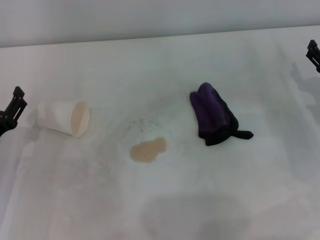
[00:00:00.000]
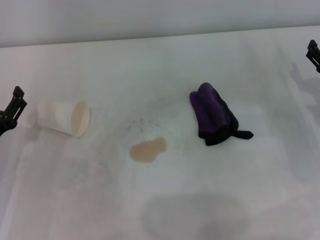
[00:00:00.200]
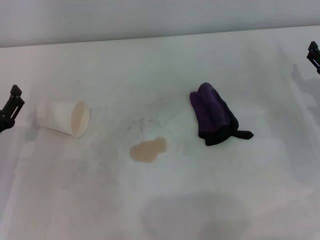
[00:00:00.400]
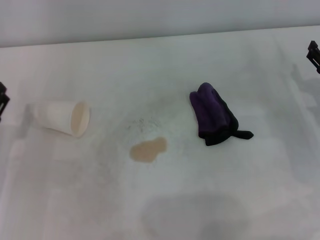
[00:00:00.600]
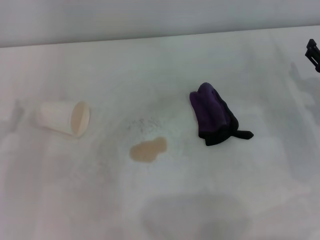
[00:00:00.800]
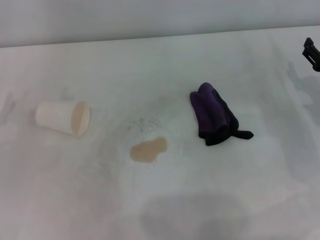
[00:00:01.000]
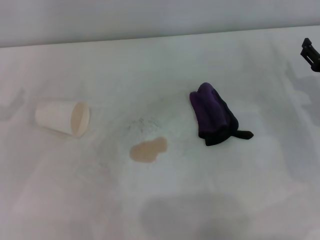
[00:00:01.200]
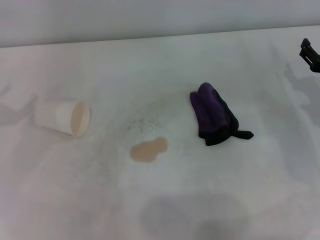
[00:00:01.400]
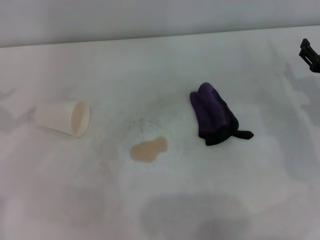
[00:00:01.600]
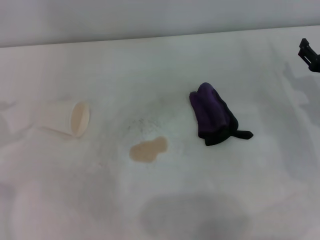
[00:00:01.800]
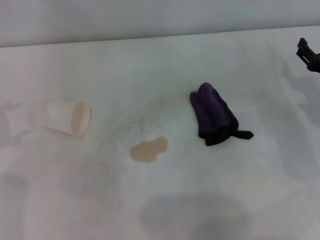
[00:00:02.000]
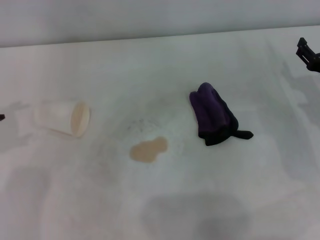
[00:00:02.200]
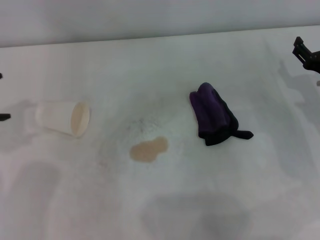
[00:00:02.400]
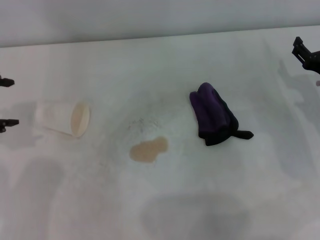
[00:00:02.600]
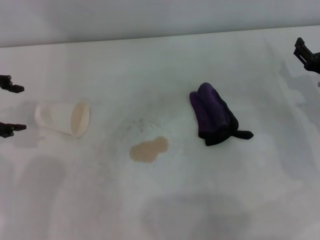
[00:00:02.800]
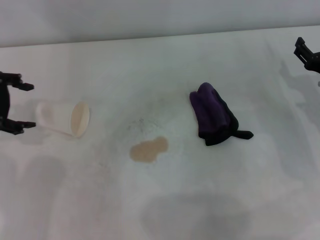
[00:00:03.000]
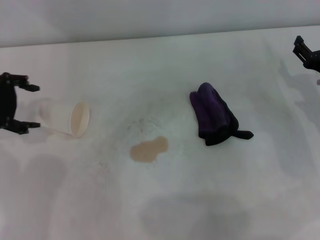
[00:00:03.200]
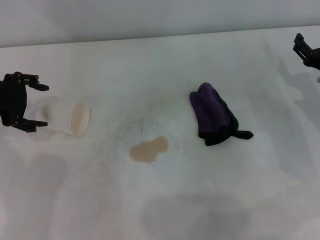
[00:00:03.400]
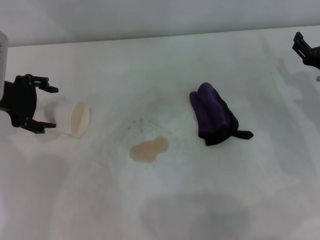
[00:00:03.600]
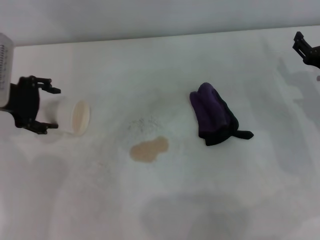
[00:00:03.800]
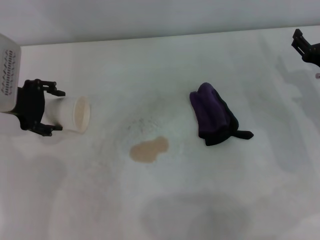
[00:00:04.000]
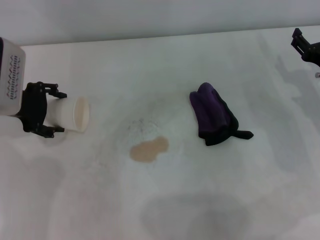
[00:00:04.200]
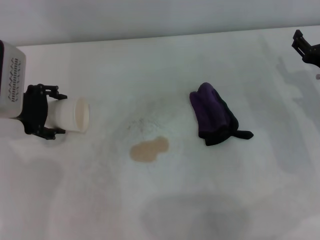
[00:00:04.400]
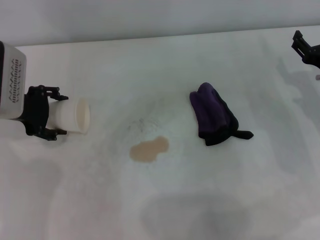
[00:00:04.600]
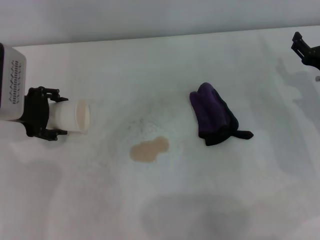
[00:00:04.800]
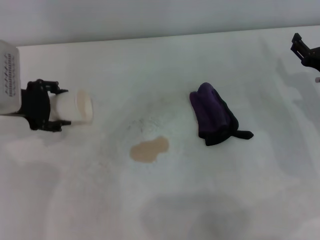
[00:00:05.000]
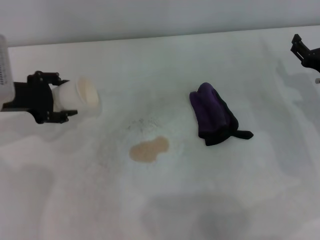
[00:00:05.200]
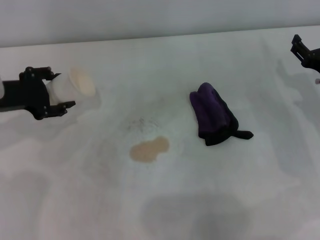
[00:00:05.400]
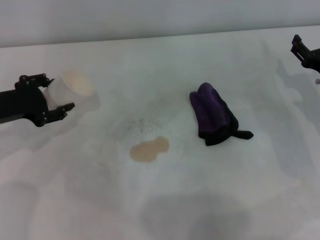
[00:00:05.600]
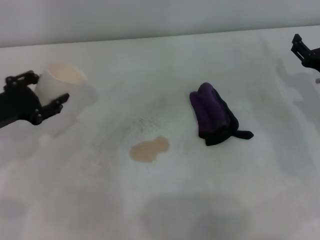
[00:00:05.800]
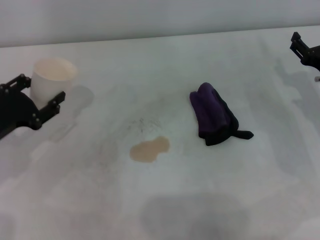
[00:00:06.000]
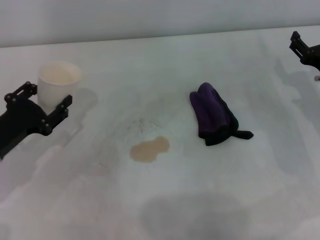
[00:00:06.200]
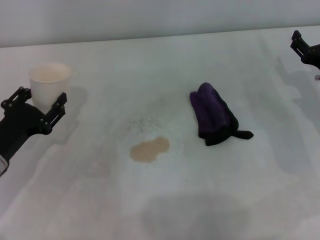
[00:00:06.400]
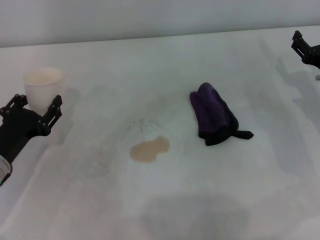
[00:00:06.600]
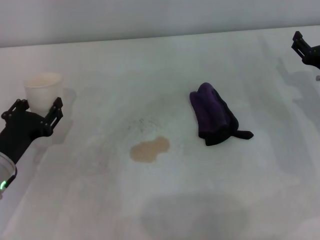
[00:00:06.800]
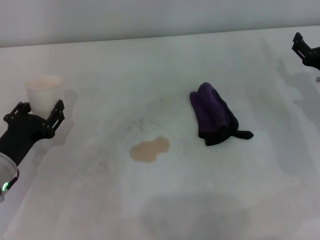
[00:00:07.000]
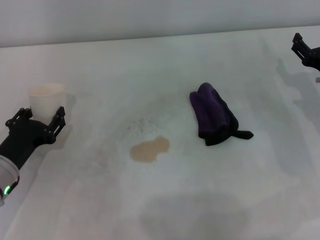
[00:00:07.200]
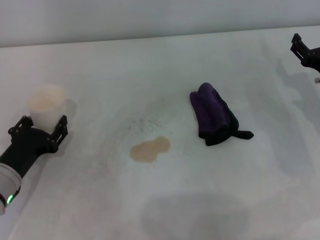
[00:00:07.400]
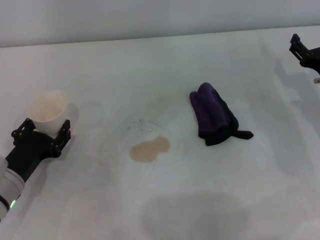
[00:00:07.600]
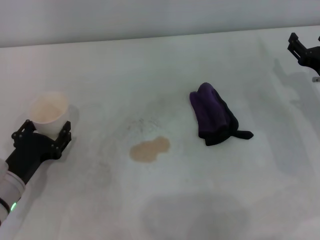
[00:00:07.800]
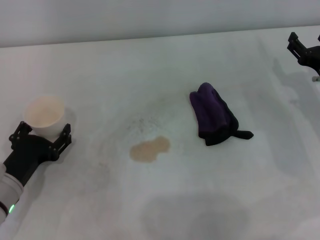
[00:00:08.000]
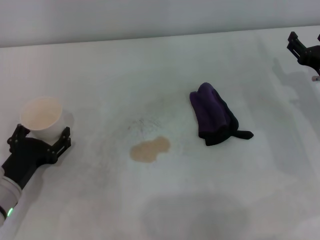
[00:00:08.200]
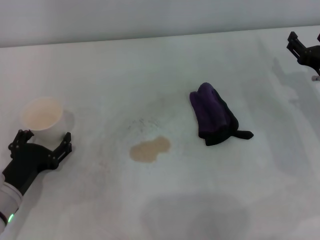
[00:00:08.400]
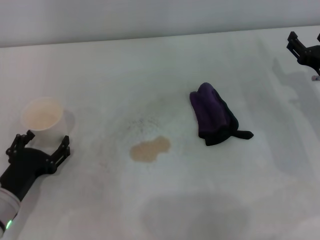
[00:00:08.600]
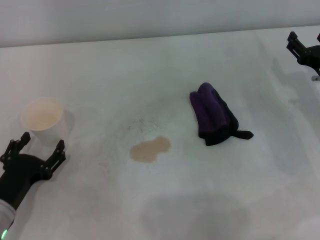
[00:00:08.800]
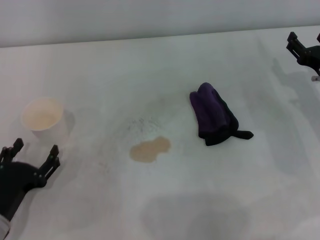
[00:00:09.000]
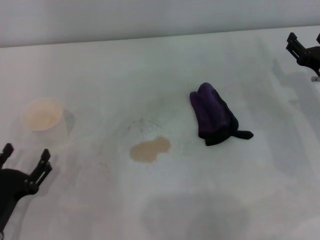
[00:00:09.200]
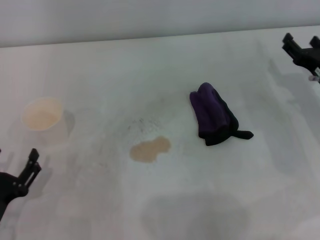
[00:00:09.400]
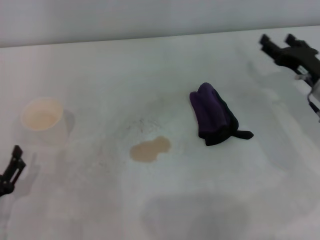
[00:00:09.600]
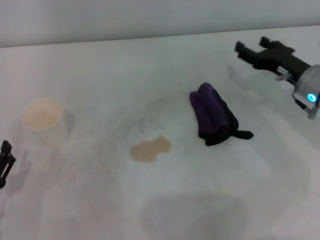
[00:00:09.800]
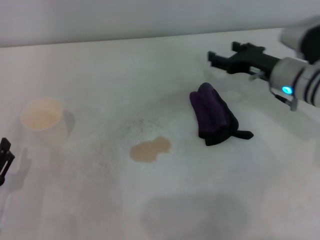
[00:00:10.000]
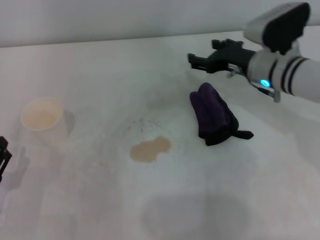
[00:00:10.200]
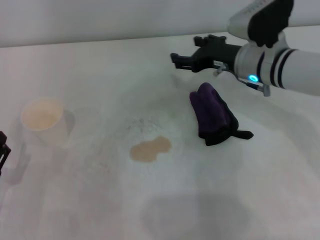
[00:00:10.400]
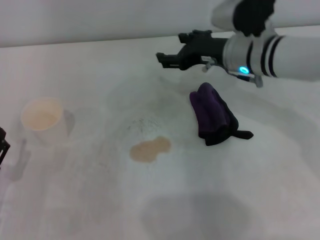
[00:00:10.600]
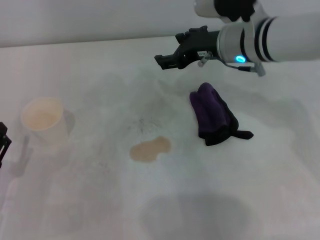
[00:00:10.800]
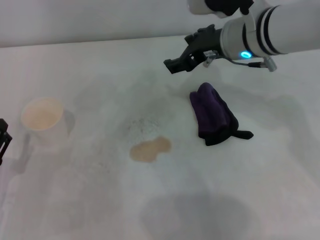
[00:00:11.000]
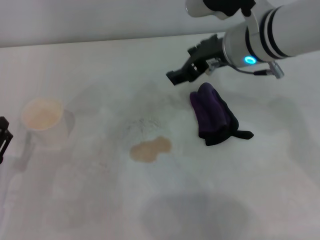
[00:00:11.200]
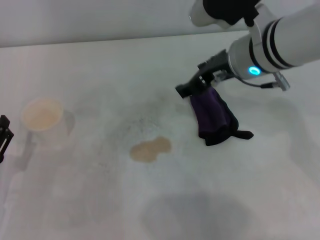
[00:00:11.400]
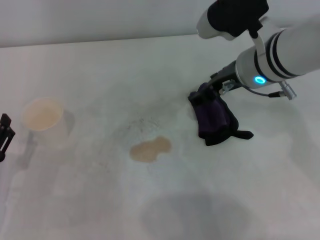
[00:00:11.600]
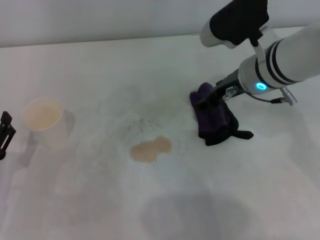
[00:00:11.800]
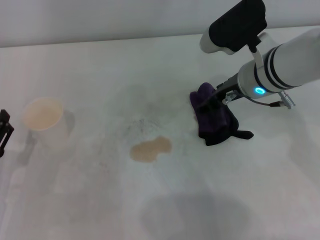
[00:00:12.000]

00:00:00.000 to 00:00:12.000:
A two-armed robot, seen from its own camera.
Step, 00:00:00.000 to 00:00:04.400: Grasp the paper cup with the left gripper.
Step, 00:00:04.800 to 00:00:08.000: Stand the paper cup upright with the left gripper.
00:00:00.000 to 00:00:01.600: The left gripper heads upward, to the left and forward, covering roughly 20 cm.
00:00:01.600 to 00:00:03.000: The left gripper is displaced to the right and forward by approximately 10 cm.
00:00:03.000 to 00:00:04.400: The left gripper goes roughly 5 cm downward.
00:00:04.400 to 00:00:06.000: The left gripper goes approximately 10 cm backward and downward, and closes.
00:00:06.000 to 00:00:07.600: The left gripper heads downward, covering about 5 cm.
00:00:07.600 to 00:00:09.000: The left gripper travels backward by roughly 5 cm, and opens.
00:00:09.000 to 00:00:10.400: The right gripper goes approximately 15 cm to the left, forward and upward.

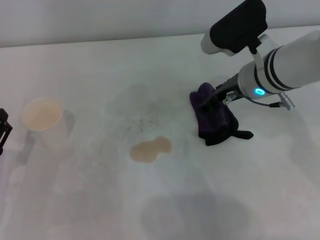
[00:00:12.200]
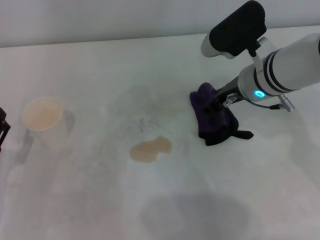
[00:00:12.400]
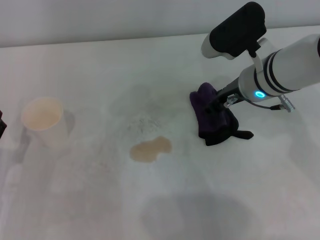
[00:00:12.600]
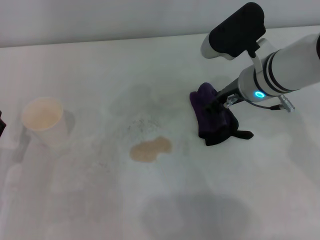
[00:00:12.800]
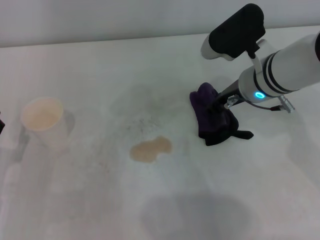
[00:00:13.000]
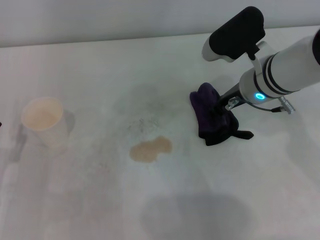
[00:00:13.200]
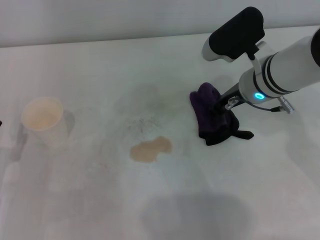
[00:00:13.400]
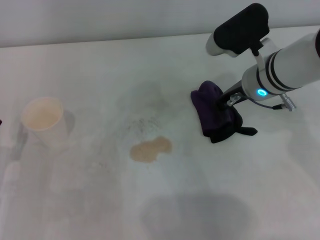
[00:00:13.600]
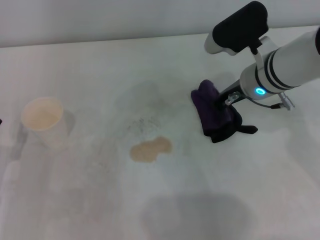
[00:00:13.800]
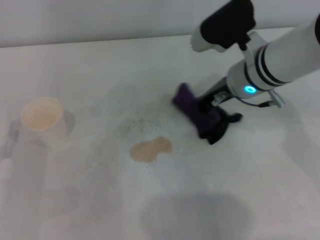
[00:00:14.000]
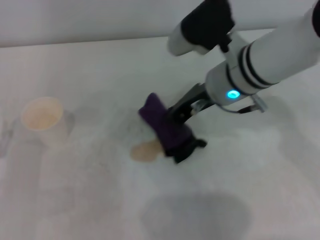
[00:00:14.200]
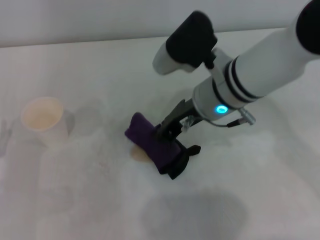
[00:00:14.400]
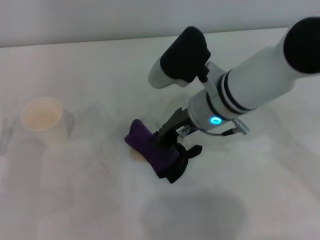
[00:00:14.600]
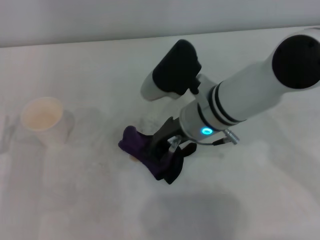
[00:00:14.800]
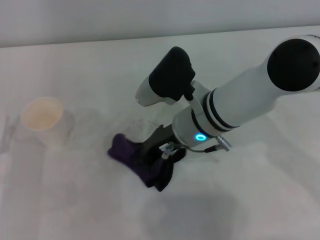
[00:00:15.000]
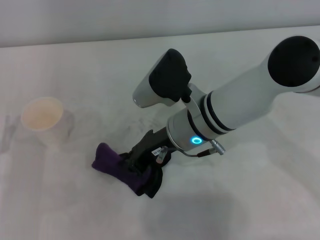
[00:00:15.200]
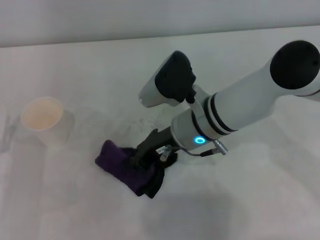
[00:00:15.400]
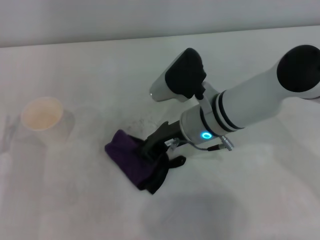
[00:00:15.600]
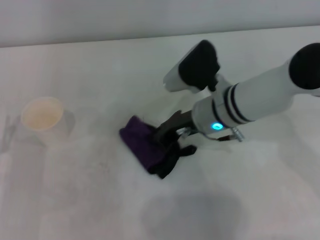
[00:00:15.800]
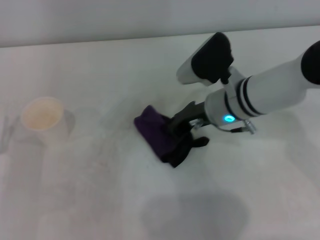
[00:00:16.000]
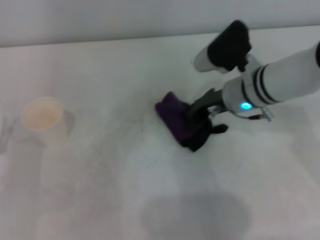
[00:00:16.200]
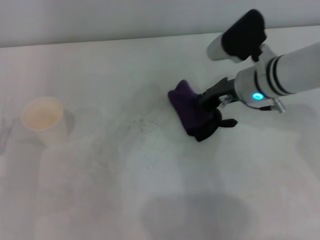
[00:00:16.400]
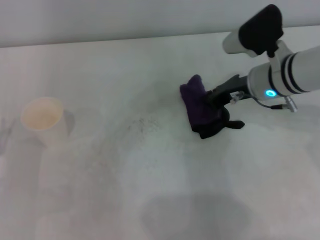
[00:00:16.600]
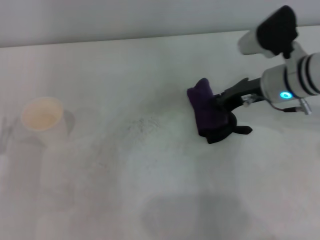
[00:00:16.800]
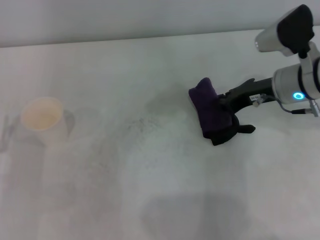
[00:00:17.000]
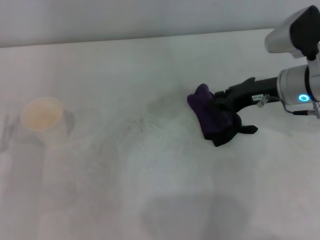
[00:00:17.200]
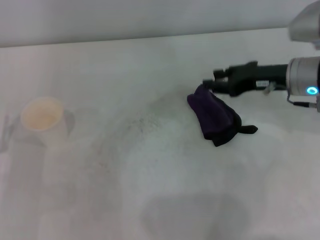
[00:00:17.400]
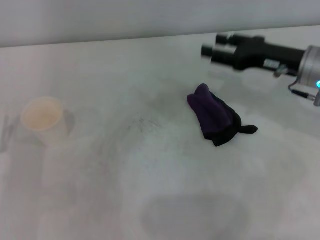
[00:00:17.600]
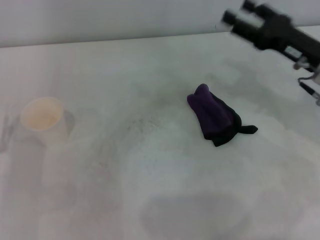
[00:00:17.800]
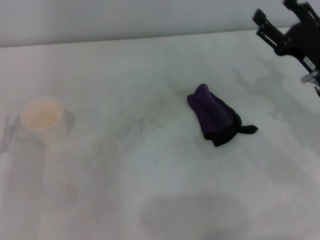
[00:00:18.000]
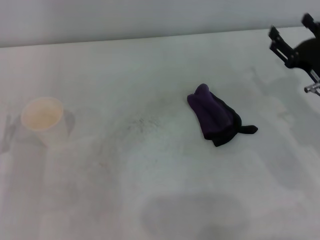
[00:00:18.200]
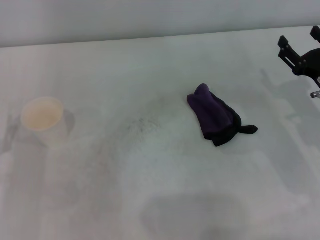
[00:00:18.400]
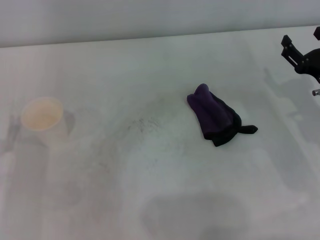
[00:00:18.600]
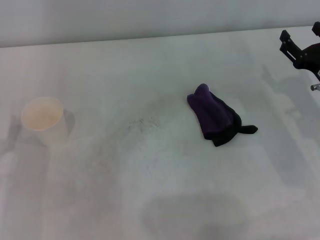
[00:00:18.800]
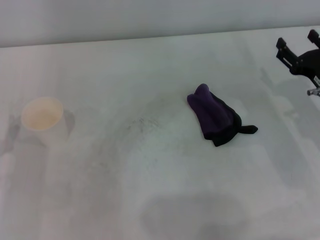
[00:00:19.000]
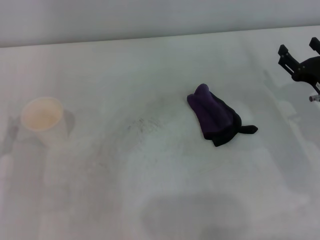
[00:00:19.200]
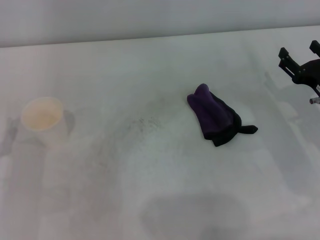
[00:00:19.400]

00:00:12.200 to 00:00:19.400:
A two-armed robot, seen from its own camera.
Step, 00:00:13.400 to 00:00:16.400: Wipe the stains off the table with the right gripper.
Step, 00:00:16.600 to 00:00:17.000: Place the rag on the table with the right gripper.
00:00:12.200 to 00:00:13.600: The right gripper closes its fingers.
00:00:13.600 to 00:00:15.000: The right gripper goes roughly 10 cm to the left.
00:00:15.000 to 00:00:16.600: The right gripper shifts approximately 10 cm to the right.
00:00:16.600 to 00:00:18.000: The right gripper heads to the right and backward, covering roughly 10 cm, and opens.
00:00:18.000 to 00:00:19.400: The right gripper changes place by about 5 cm.
